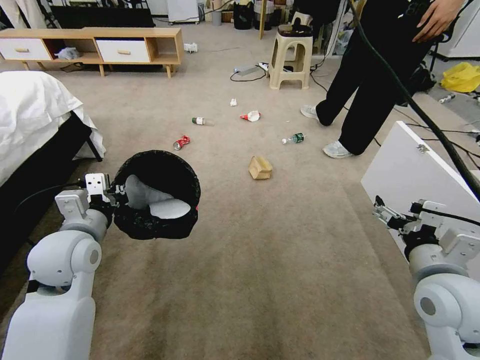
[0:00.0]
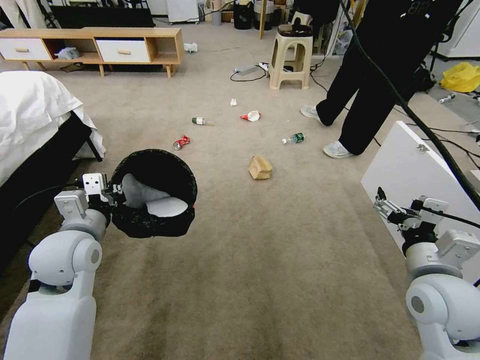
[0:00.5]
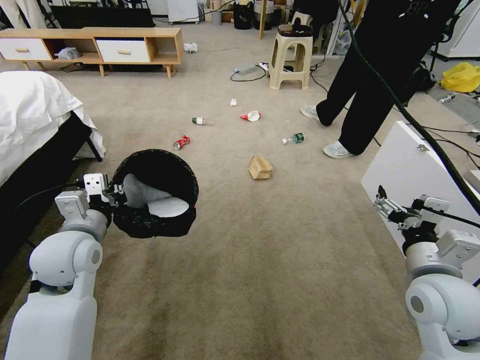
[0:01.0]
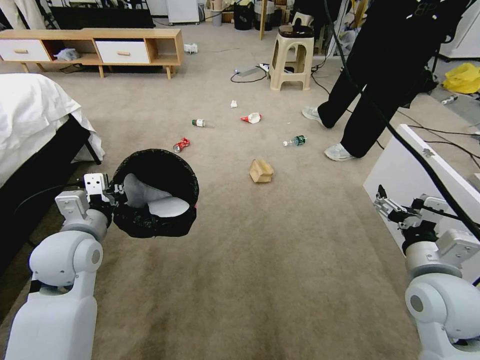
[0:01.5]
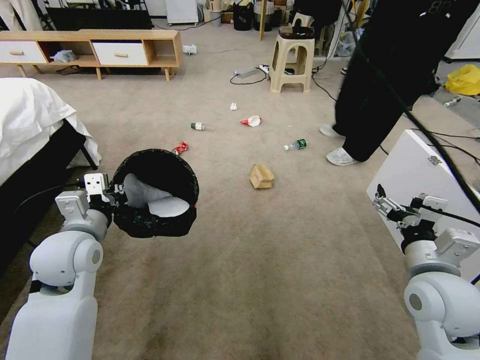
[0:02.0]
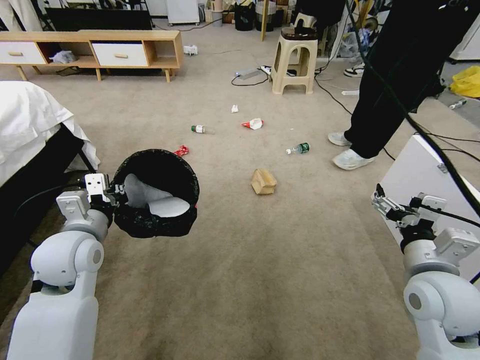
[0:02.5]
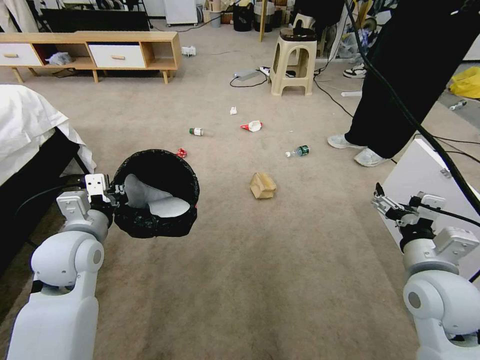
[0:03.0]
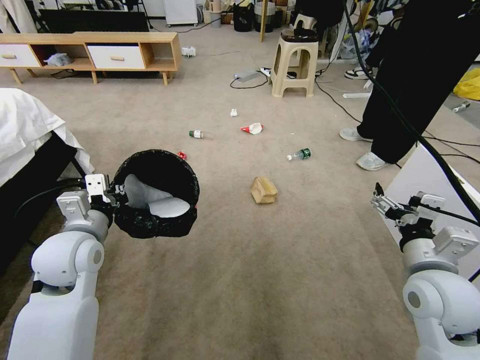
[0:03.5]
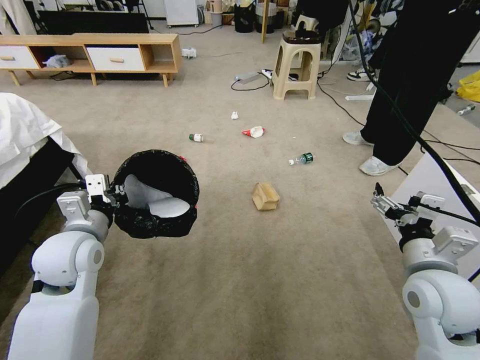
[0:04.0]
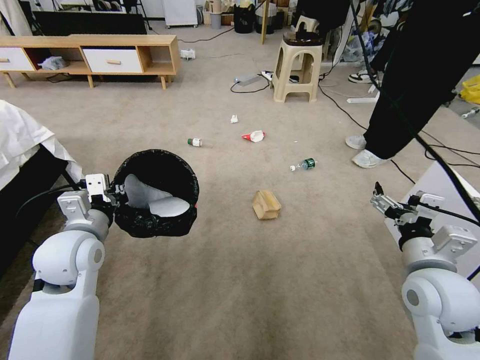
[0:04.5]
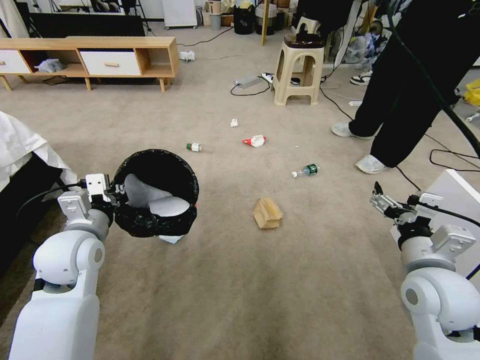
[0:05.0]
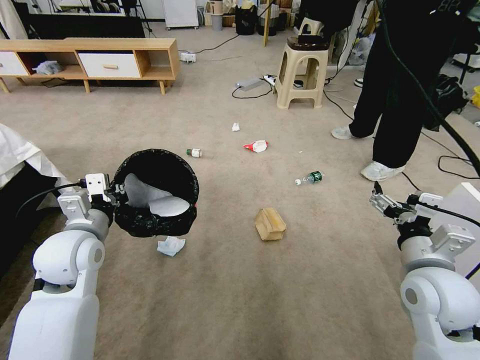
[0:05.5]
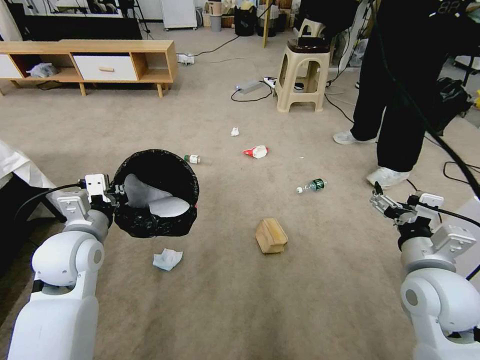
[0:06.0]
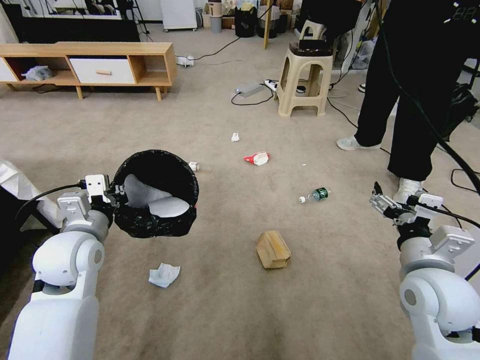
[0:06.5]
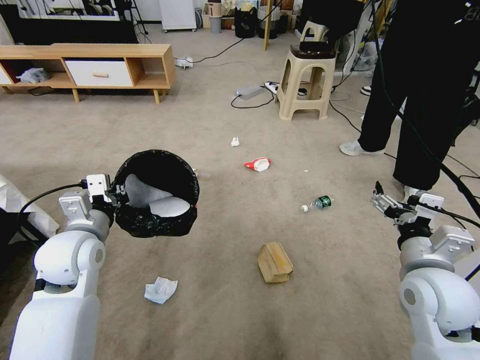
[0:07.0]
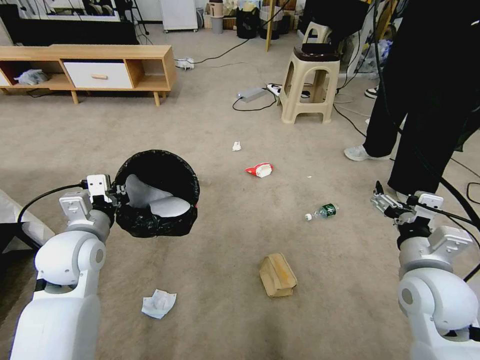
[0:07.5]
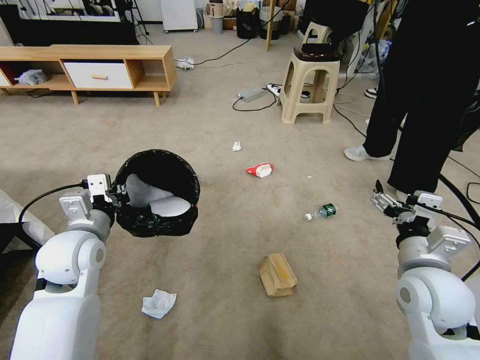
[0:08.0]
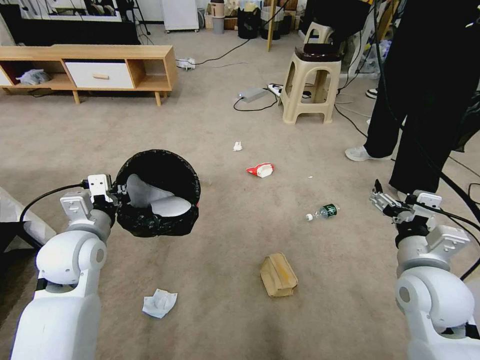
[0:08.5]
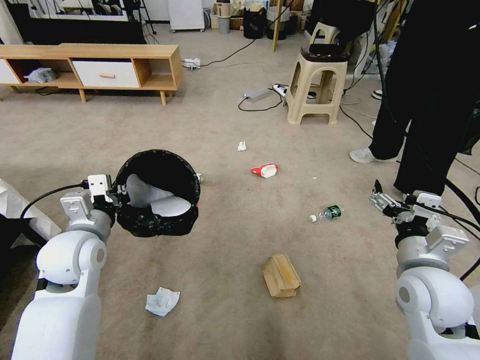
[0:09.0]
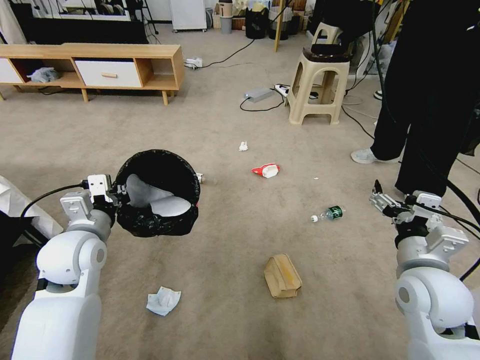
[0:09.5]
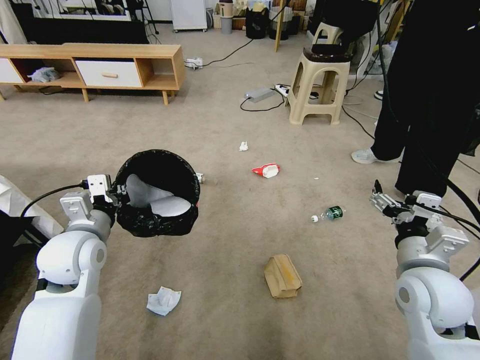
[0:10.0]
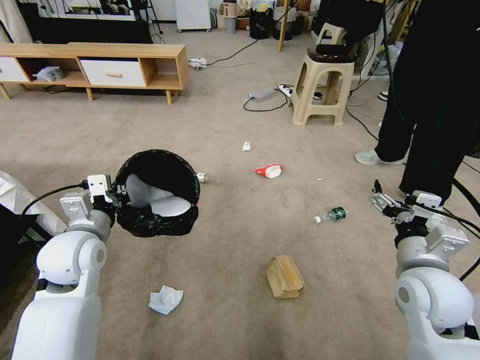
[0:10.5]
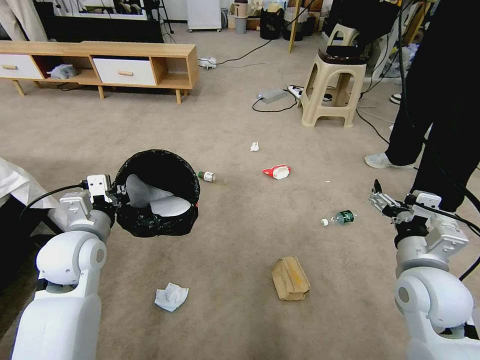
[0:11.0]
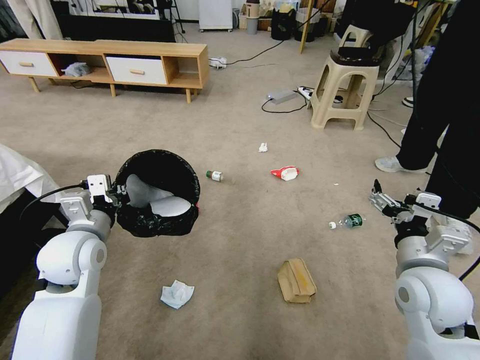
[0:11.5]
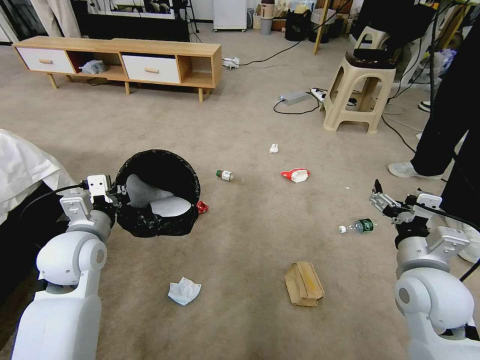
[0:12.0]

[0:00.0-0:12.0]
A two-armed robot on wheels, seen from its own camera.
Task of the whole recording: Pick up the trash bin and place the garbage on the floor into it.
0:08.0 to 0:10.0: Both grippers stay about where they are.

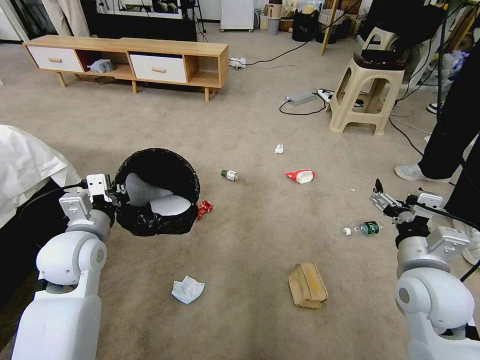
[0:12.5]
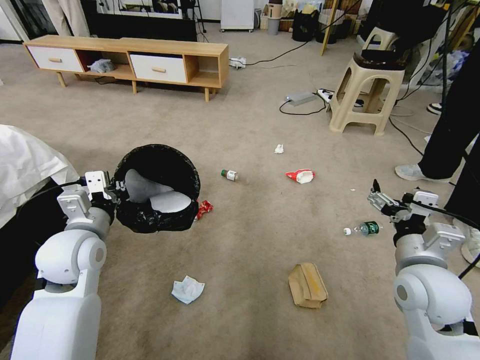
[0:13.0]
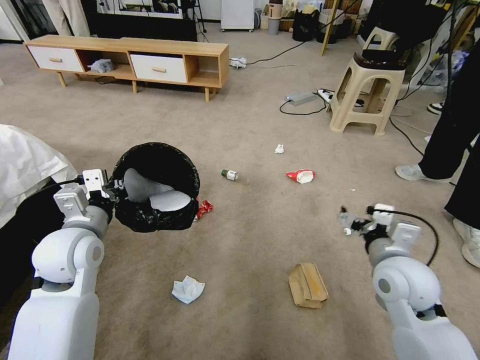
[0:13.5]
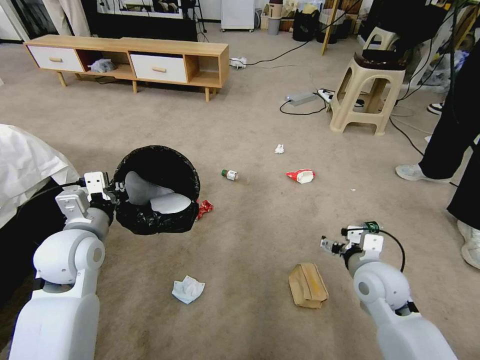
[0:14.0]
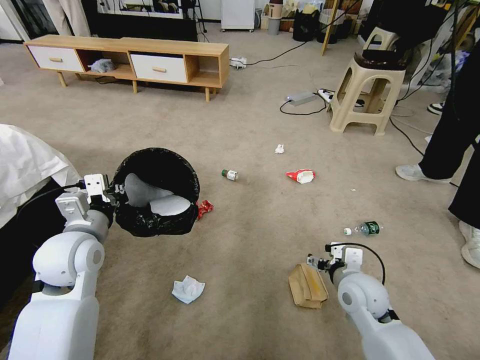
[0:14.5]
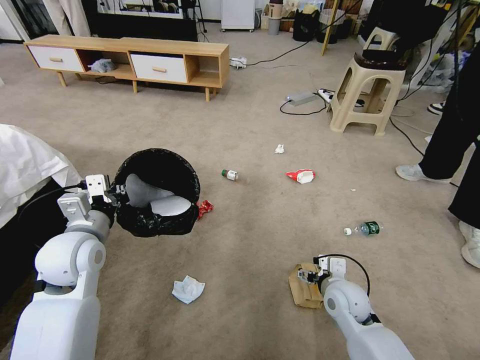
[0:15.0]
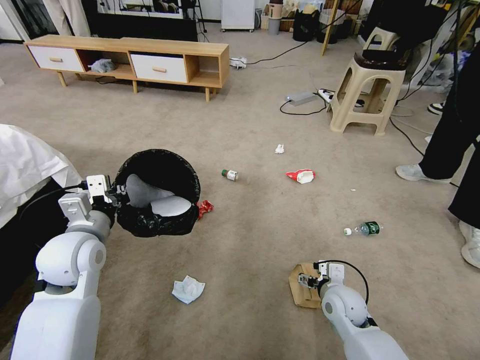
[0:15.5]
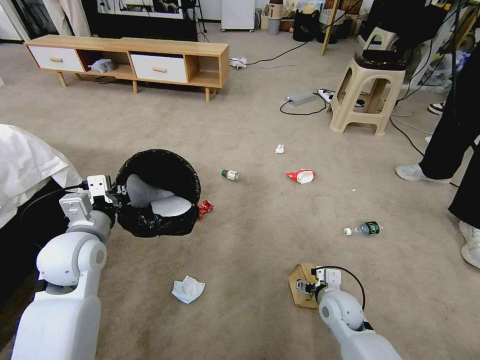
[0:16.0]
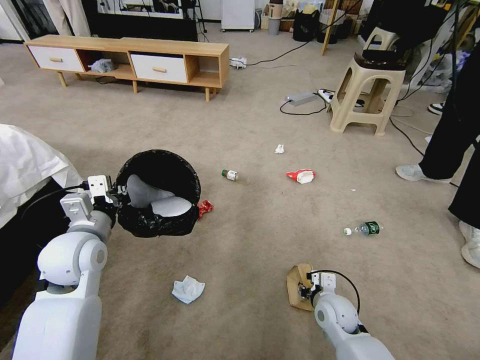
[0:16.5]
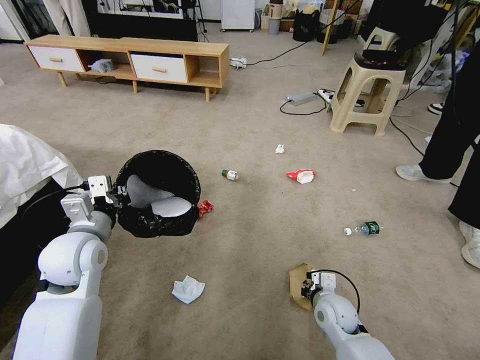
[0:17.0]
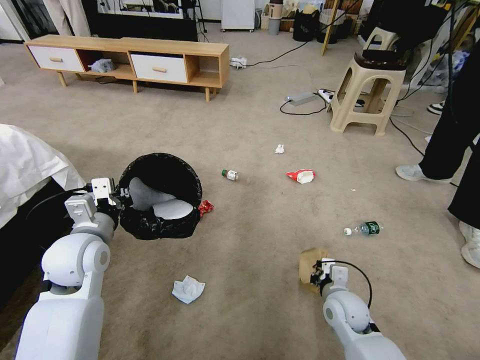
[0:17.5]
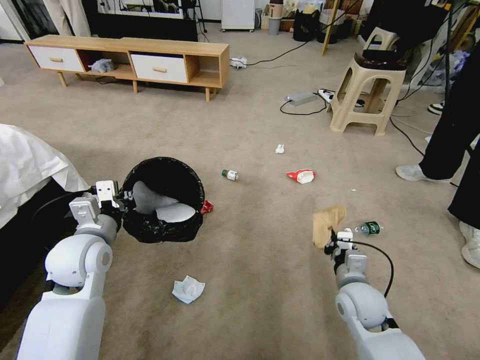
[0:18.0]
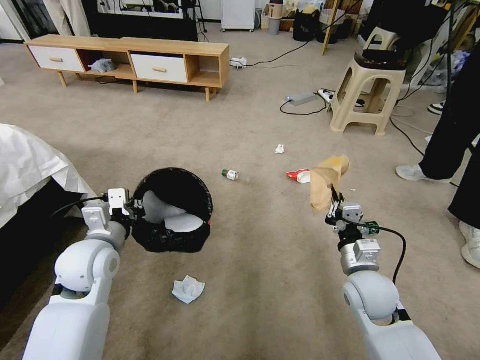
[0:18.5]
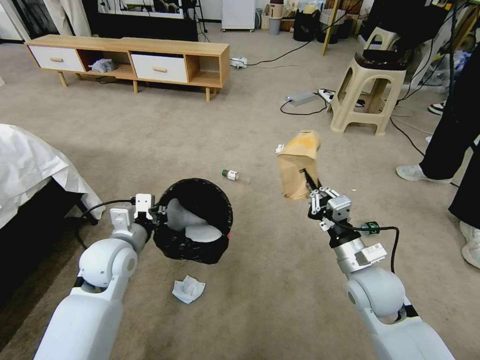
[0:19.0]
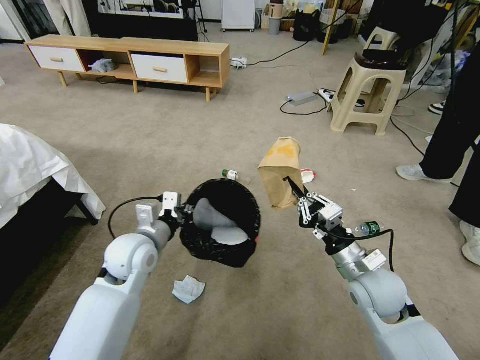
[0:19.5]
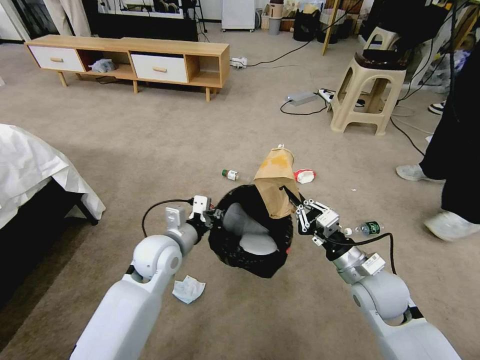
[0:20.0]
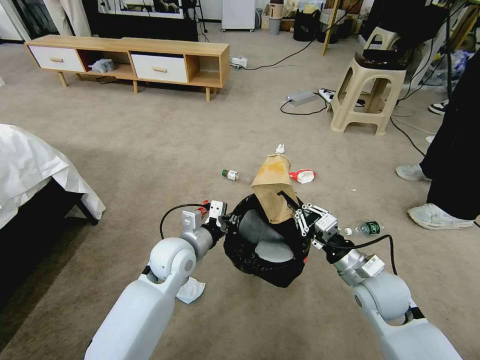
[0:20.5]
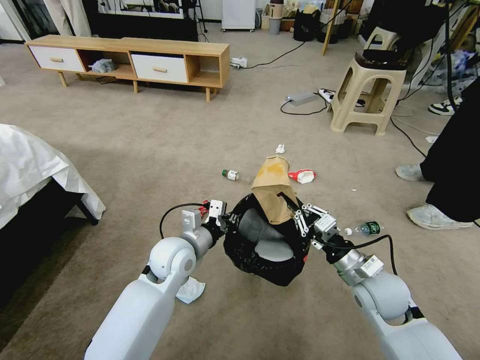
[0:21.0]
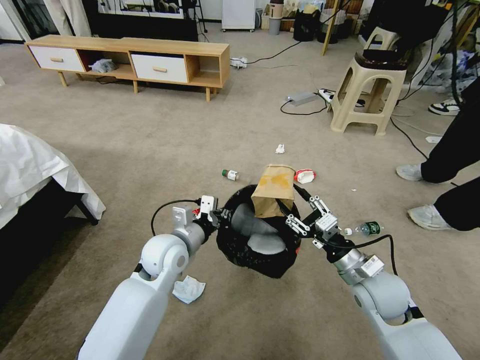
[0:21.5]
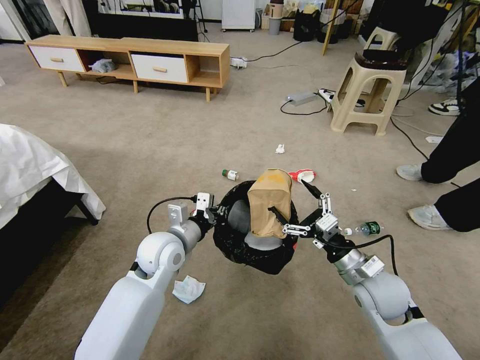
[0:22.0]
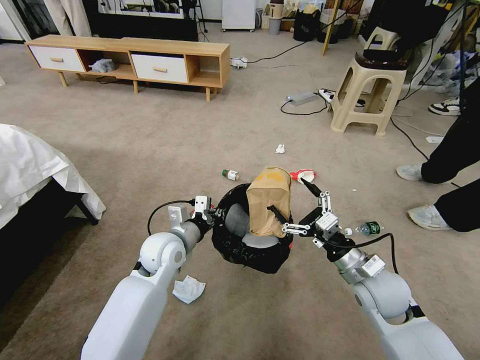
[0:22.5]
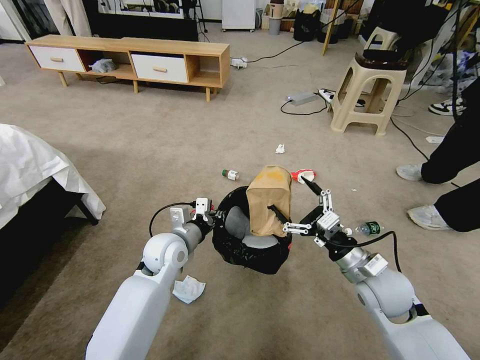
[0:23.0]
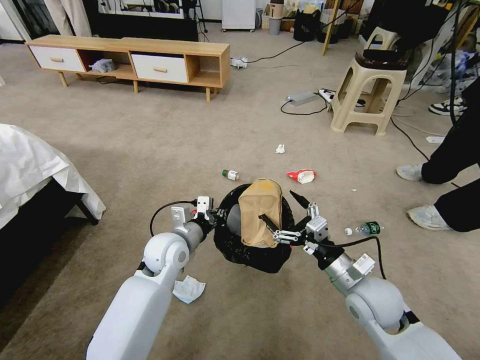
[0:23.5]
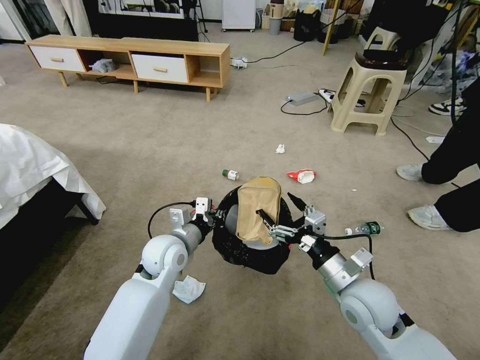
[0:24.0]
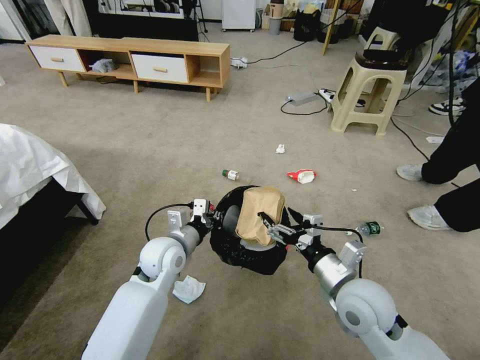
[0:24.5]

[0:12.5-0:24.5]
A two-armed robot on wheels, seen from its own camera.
Task of the whole recording: Pick up the trash bin and place the garbage on the floor into it.
0:12.5 to 0:14.5: The right gripper moves downward and to the left, some 15 cm.
0:14.5 to 0:16.5: The right gripper moves downward, approximately 10 cm, and closes.
0:16.5 to 0:18.5: The right gripper moves upward, roughly 15 cm, and closes up.
0:18.5 to 0:20.5: The left gripper travels to the right by approximately 15 cm.
0:20.5 to 0:22.5: The right gripper opens up.
0:22.5 to 0:24.5: The right gripper goes roughly 5 cm to the left.

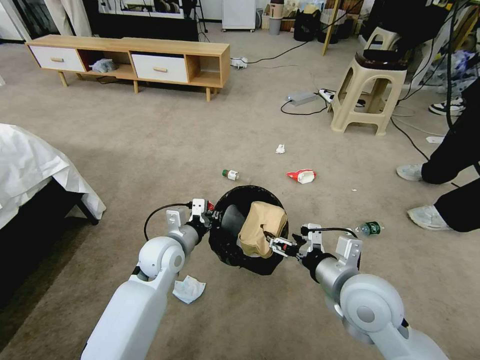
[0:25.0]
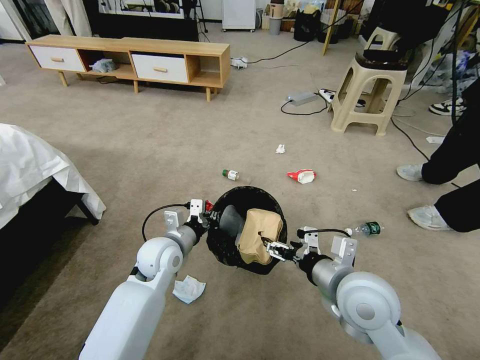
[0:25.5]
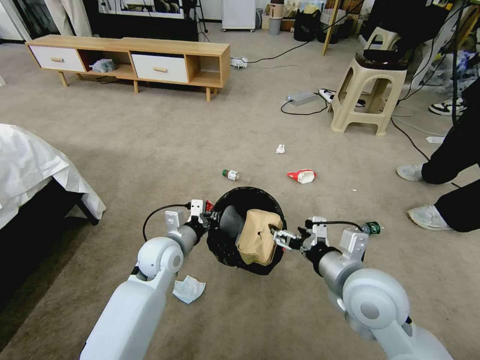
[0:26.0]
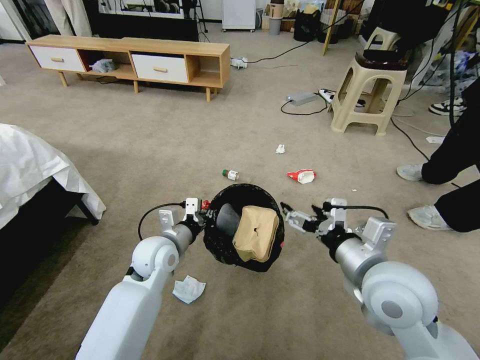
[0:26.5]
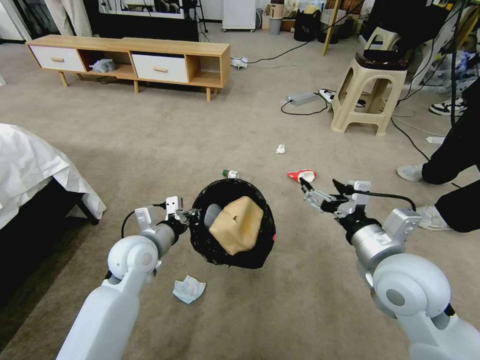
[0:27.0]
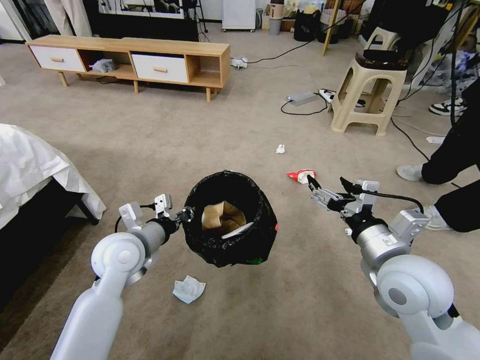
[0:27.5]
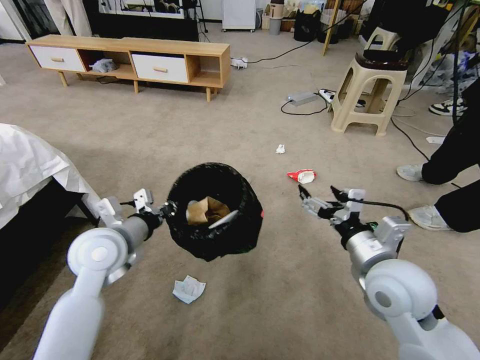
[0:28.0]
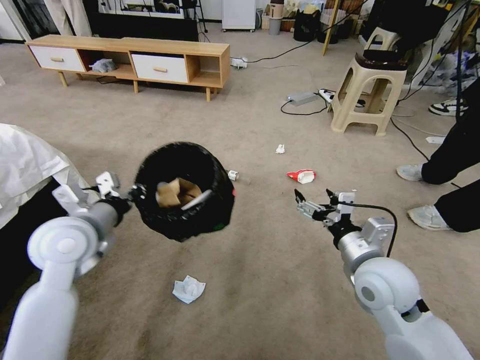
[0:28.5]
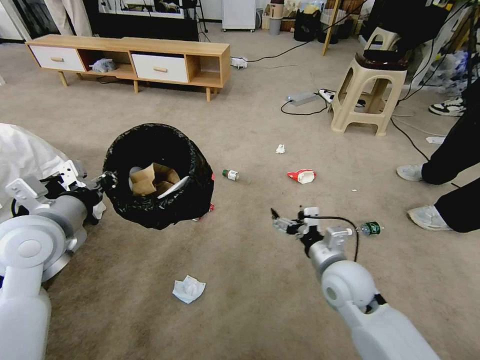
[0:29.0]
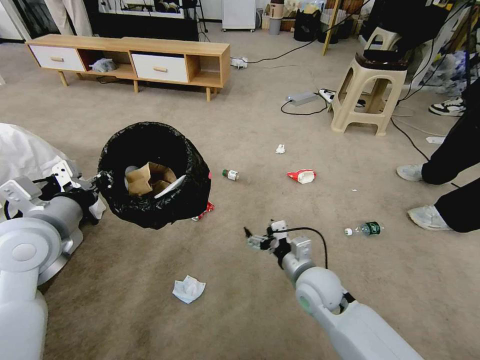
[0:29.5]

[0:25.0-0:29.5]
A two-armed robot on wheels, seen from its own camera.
Task of the whole recording: Pick up the trash bin and place the garbage on the floor into it.
0:25.0 to 0:27.0: The left gripper goes approximately 5 cm to the left, while the right gripper goes about 5 cm upward.
0:27.0 to 0:29.5: The left gripper travels upward, to the left and backward by roughly 20 cm. Meanwhile the right gripper shifts some 20 cm downward and to the left.
